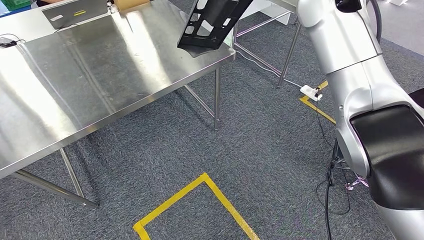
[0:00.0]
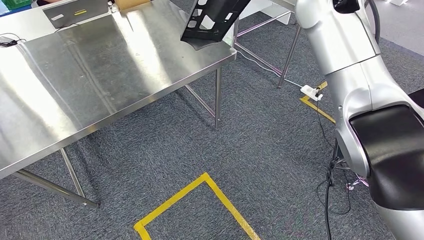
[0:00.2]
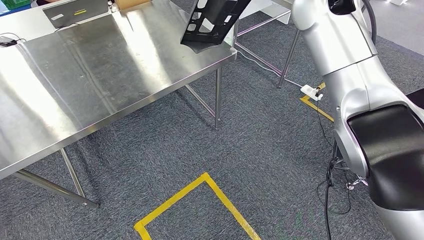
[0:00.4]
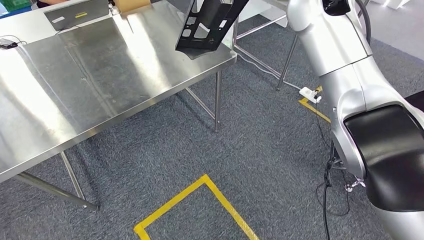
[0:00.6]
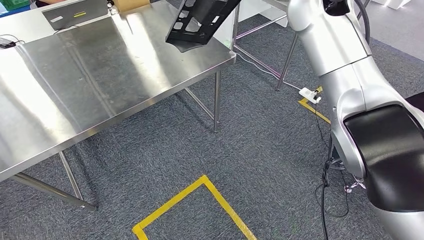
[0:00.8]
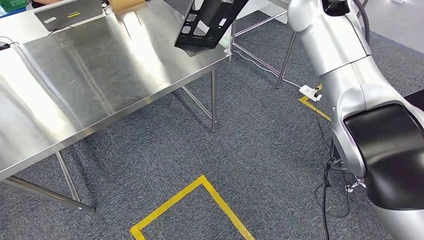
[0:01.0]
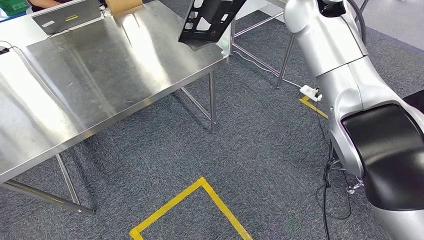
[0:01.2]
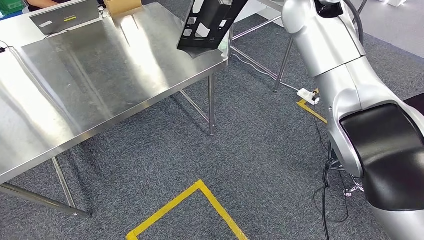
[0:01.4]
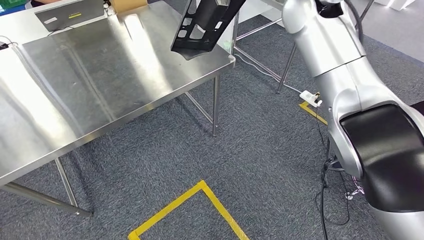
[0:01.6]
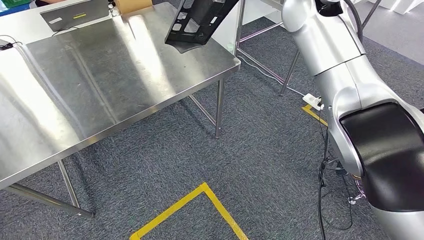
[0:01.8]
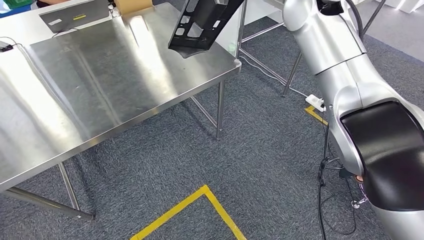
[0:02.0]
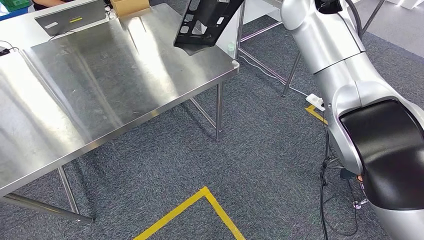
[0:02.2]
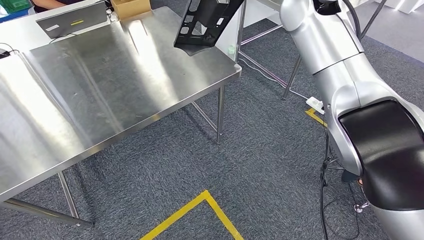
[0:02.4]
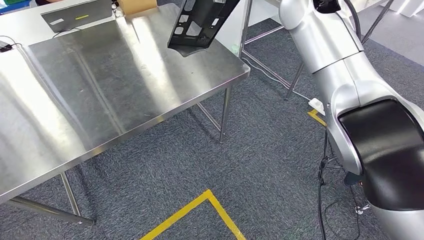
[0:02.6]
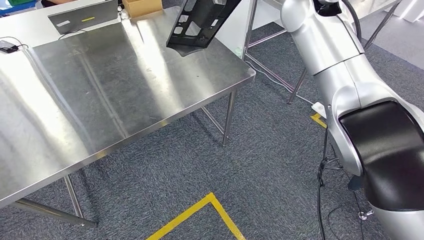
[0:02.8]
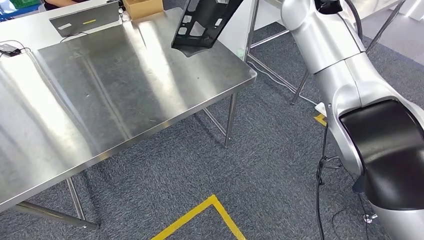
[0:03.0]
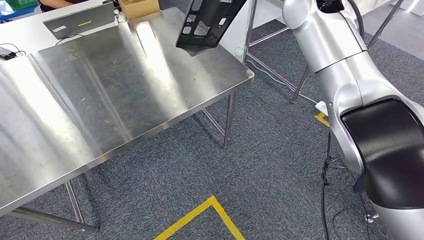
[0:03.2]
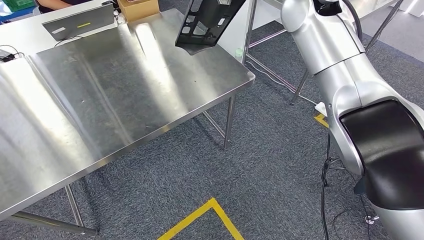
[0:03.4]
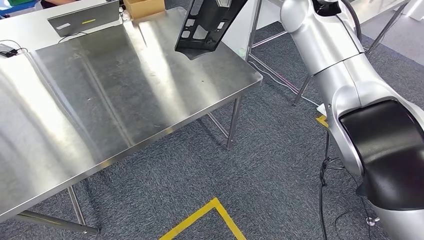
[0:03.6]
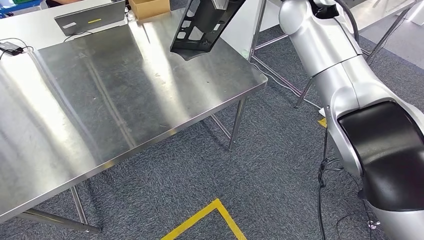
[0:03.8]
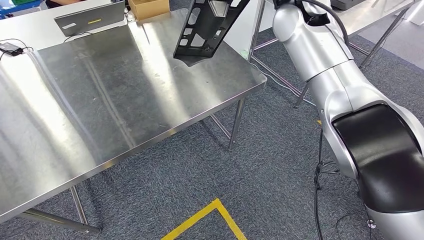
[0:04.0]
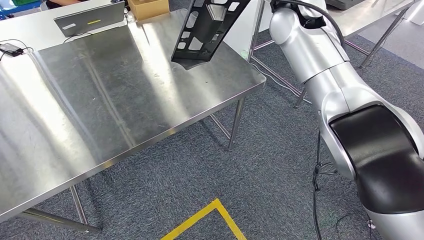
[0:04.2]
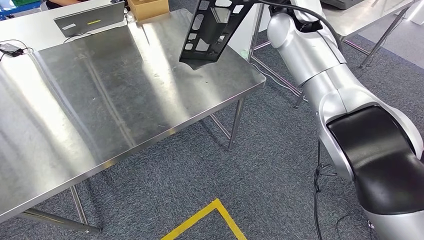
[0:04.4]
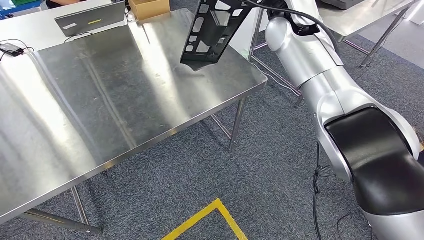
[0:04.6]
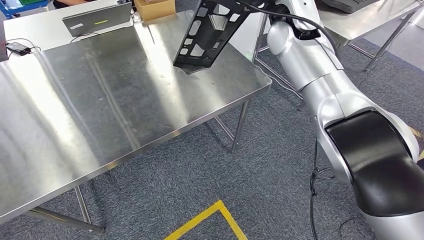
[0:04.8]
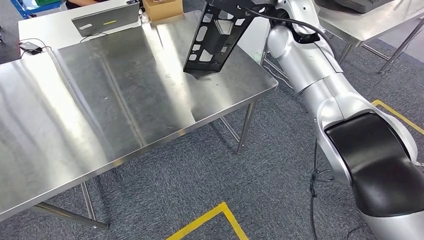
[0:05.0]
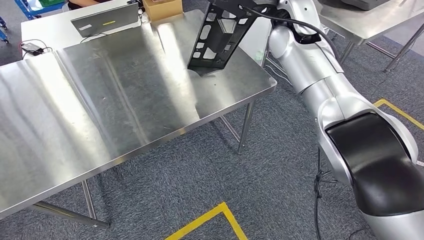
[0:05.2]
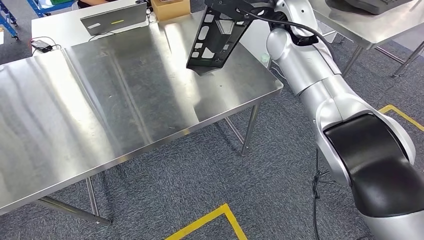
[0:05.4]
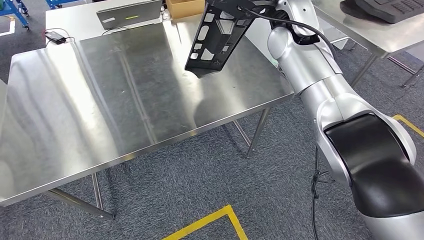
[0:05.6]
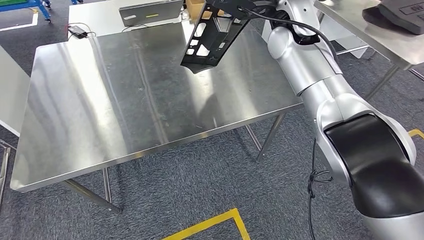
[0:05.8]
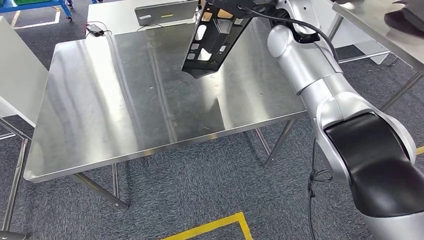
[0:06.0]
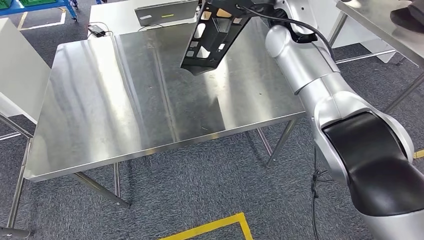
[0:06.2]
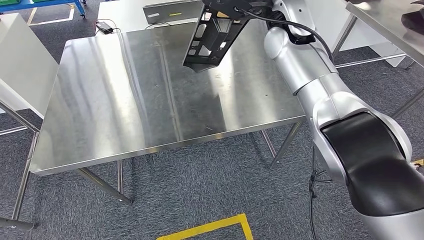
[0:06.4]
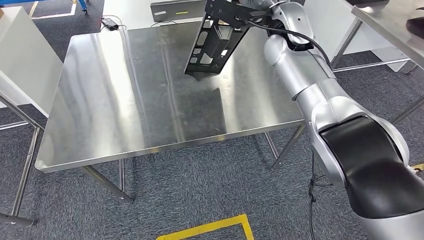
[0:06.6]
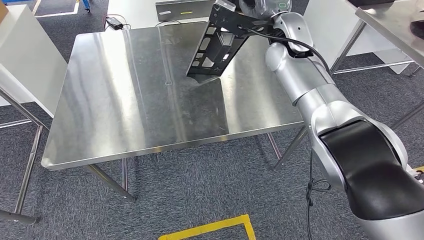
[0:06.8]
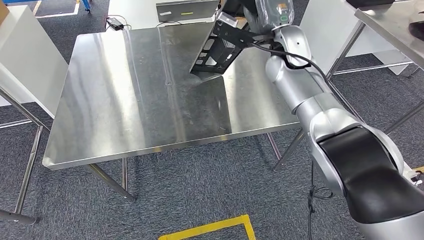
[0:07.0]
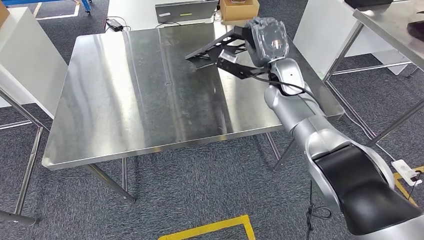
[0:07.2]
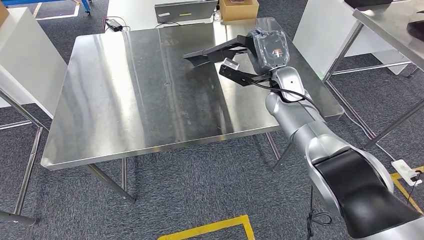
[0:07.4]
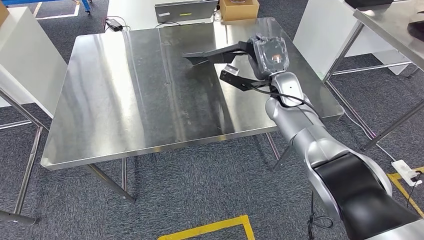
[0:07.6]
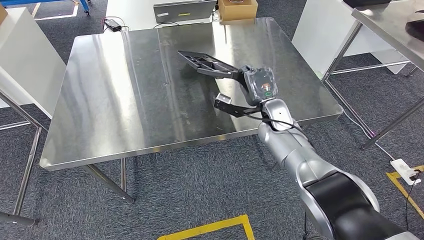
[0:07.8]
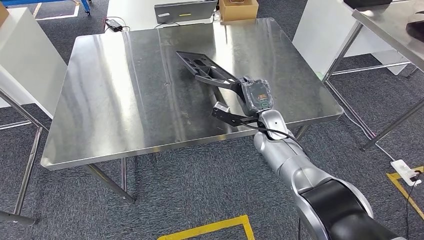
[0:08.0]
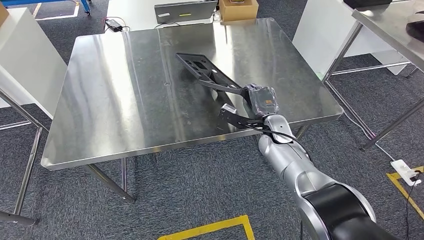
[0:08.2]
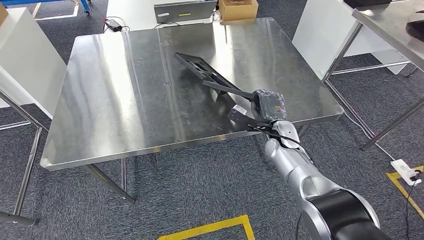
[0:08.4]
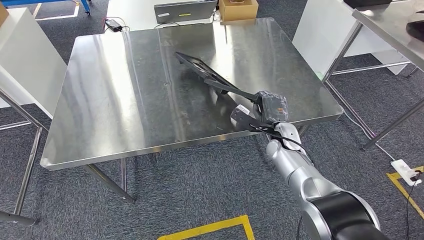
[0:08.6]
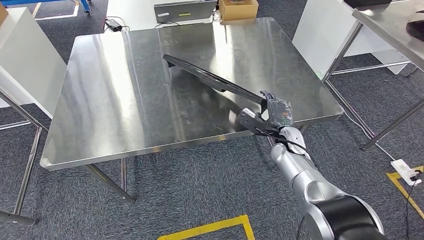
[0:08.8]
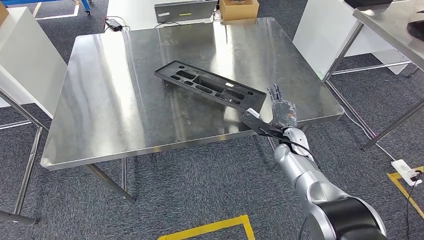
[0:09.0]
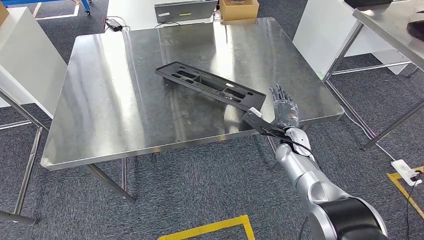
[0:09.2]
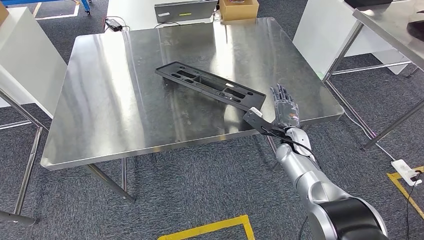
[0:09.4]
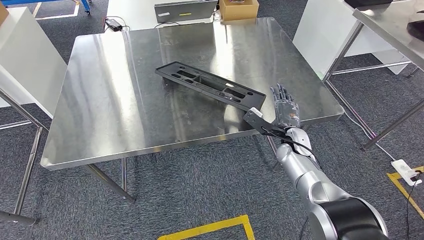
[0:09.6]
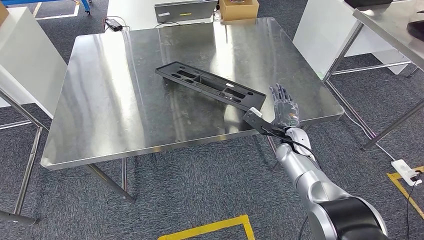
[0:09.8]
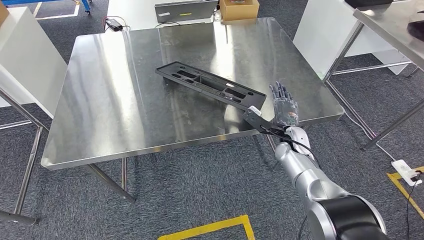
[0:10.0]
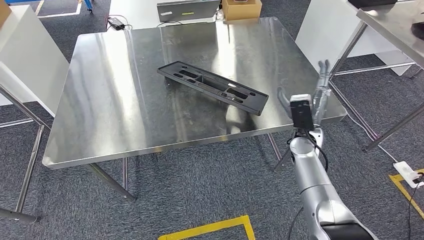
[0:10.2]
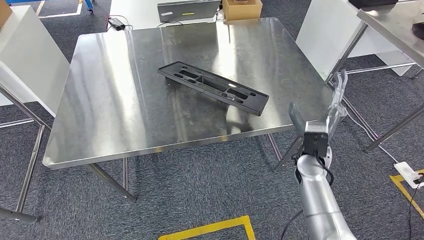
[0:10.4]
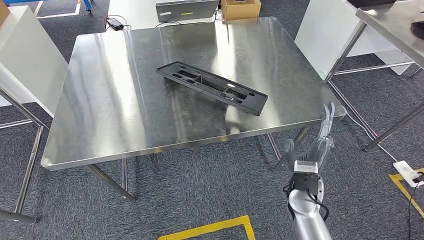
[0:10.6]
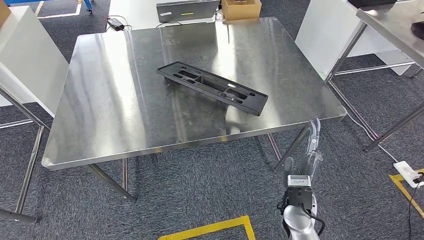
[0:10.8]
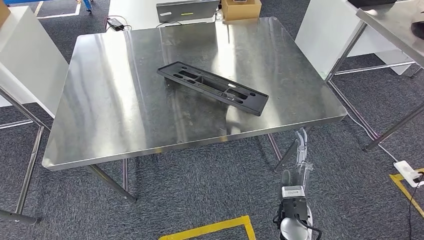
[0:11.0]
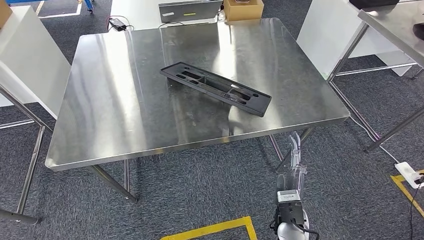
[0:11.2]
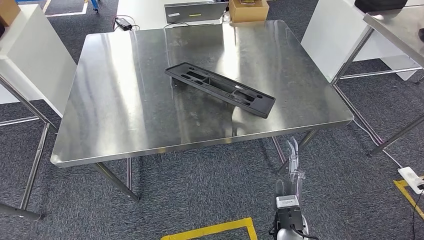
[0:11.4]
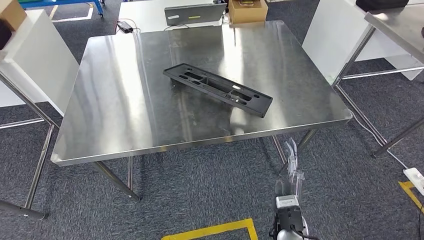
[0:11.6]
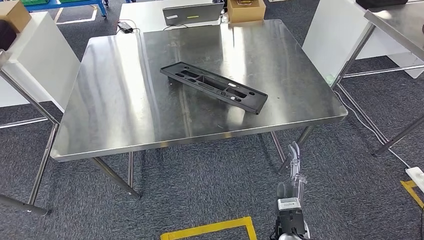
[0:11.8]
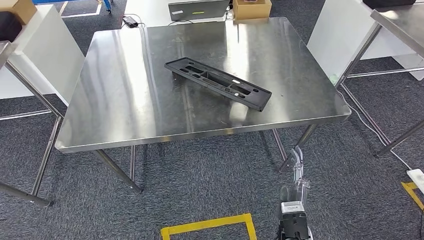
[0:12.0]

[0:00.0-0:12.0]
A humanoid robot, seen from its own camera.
Step, 0:00.0 to 0:02.0: Move the large material to the workbench.
0:07.6 to 0:09.0: The right hand travels downward and backward by approximately 15 cm.
0:09.0 to 0:10.4: The right hand is displaced backward by some 5 cm.

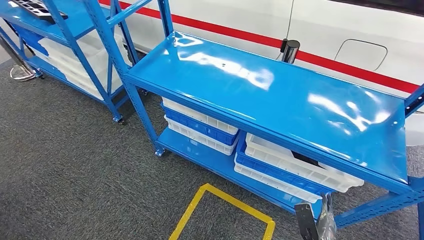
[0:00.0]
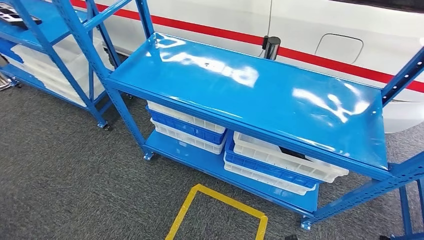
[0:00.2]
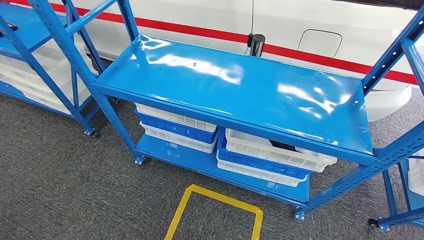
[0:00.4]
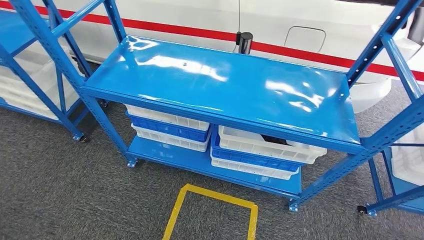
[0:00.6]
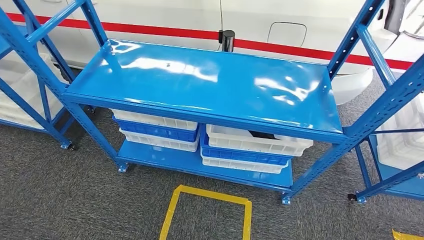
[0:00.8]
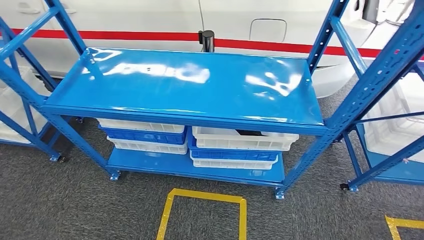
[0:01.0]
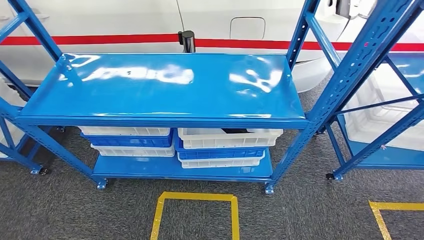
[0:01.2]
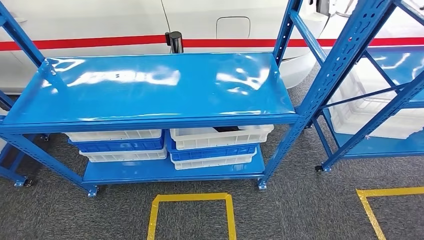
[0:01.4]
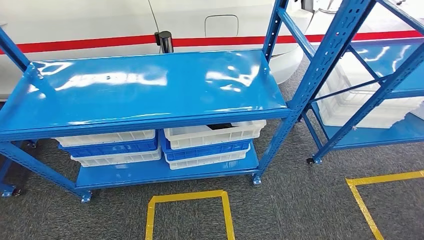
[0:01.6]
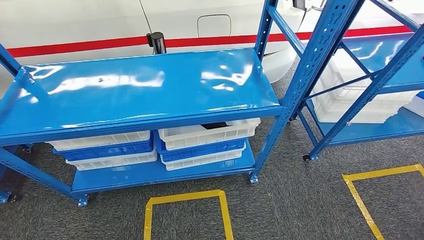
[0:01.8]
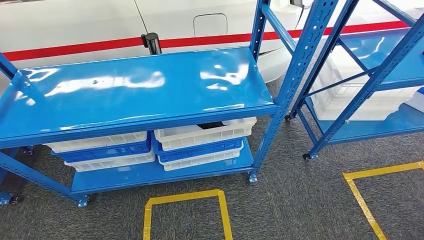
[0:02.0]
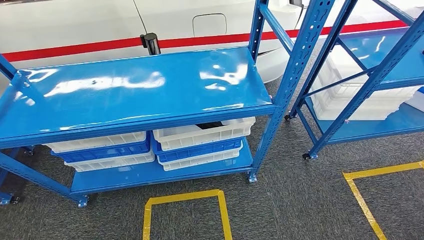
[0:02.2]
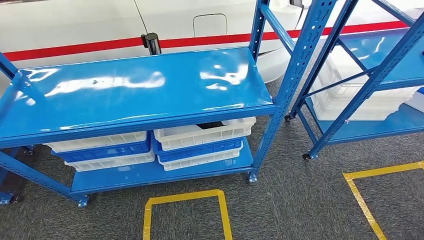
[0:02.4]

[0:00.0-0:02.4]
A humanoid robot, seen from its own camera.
Step, 0:00.0 to 0:02.4: Return to the initial position at the shelf.
